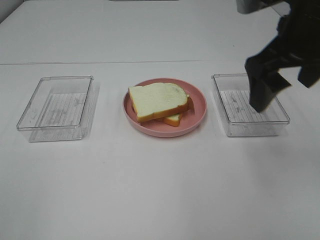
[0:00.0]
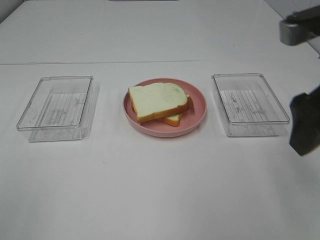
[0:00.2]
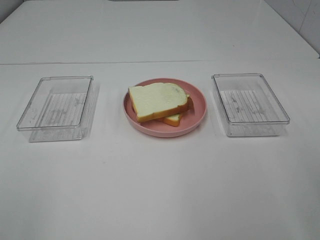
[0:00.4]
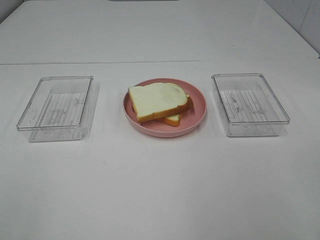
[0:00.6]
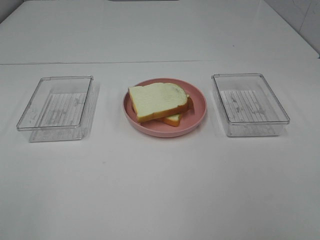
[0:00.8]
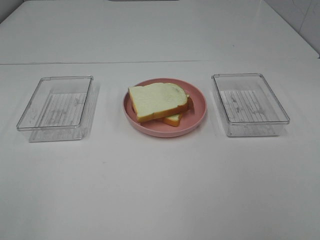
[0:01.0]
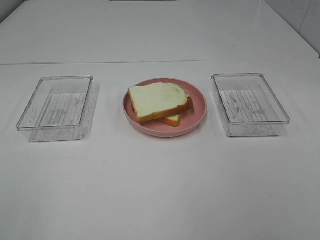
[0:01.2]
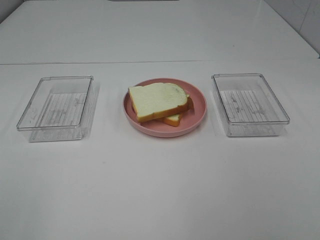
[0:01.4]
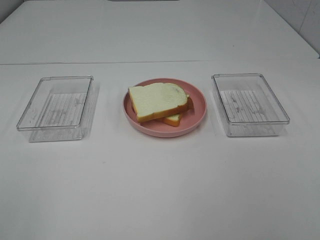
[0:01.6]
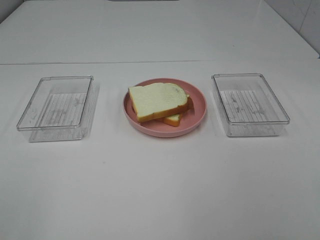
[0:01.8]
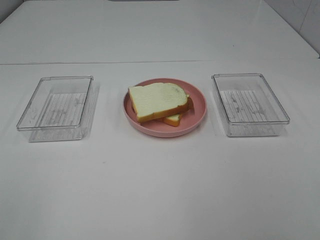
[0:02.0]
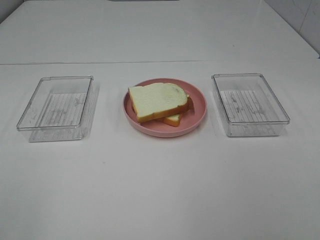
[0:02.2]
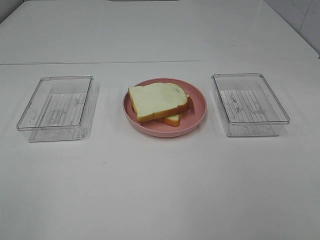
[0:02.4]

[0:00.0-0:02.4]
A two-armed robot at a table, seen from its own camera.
Task of the whole recording: Make sandwiches.
0:00.0 to 0:01.2: The right gripper goes some 30 cm backward and to the right.

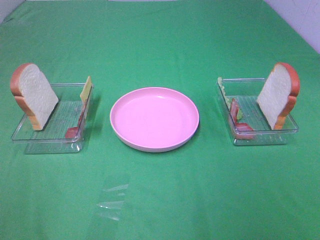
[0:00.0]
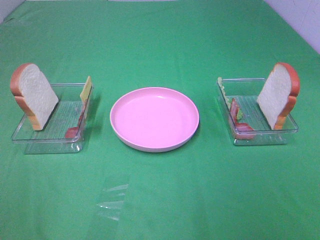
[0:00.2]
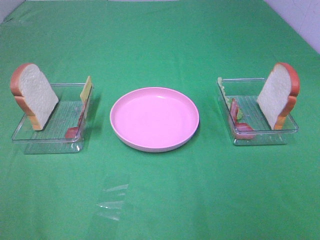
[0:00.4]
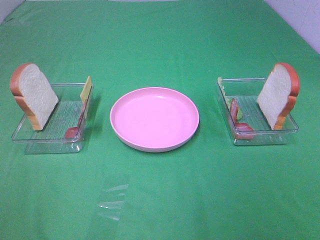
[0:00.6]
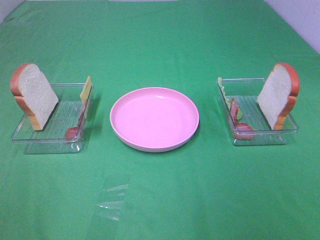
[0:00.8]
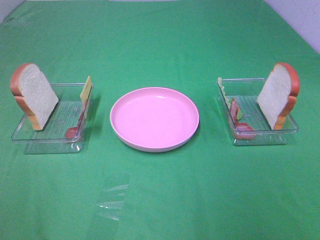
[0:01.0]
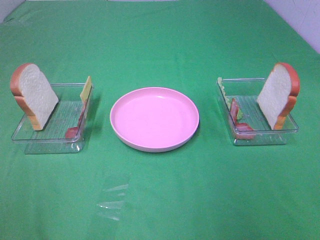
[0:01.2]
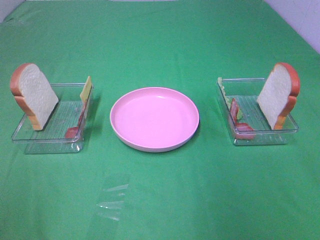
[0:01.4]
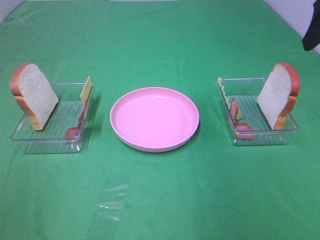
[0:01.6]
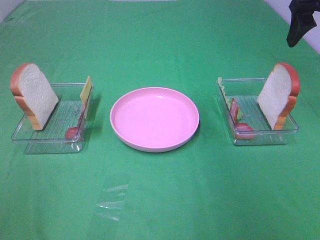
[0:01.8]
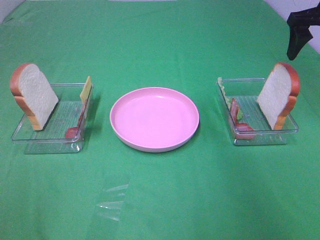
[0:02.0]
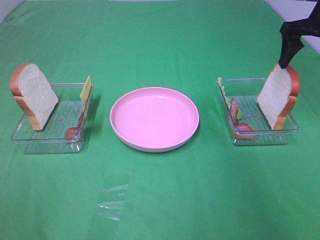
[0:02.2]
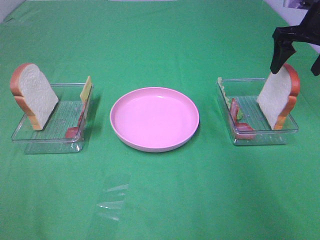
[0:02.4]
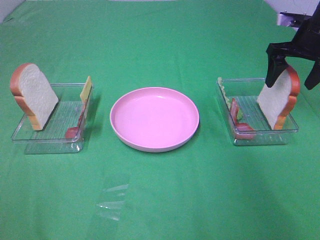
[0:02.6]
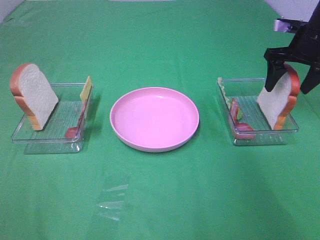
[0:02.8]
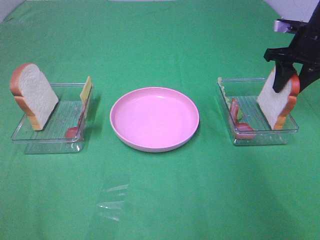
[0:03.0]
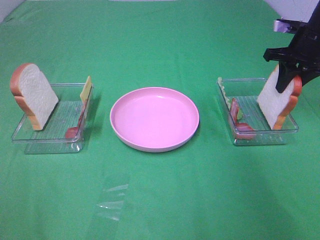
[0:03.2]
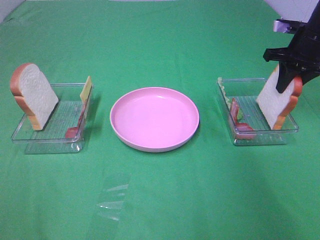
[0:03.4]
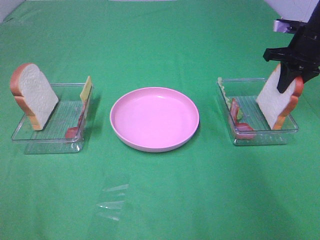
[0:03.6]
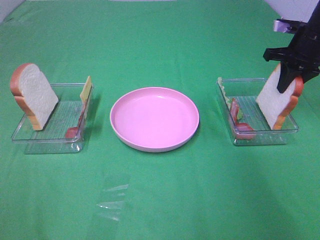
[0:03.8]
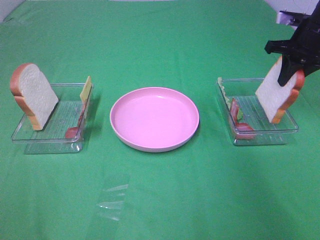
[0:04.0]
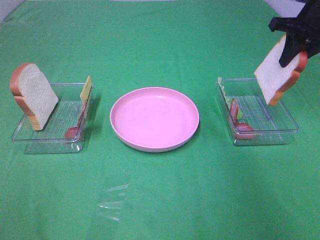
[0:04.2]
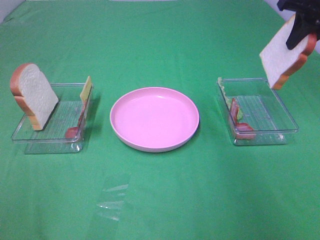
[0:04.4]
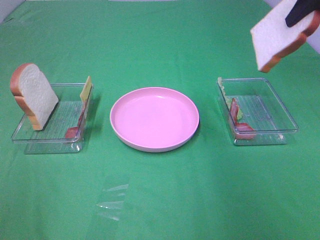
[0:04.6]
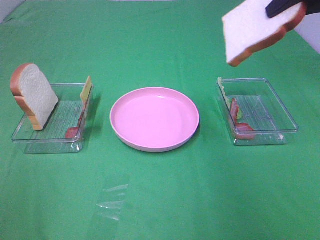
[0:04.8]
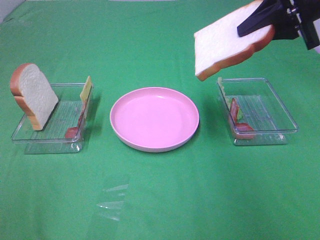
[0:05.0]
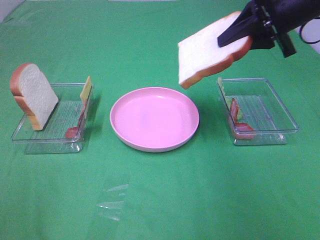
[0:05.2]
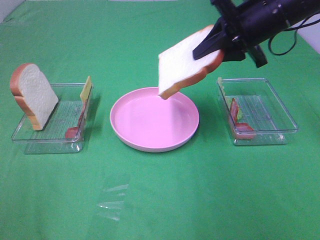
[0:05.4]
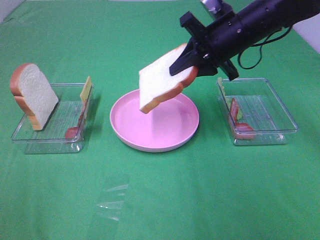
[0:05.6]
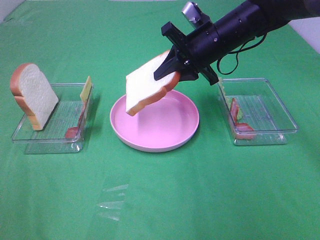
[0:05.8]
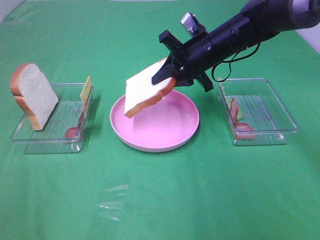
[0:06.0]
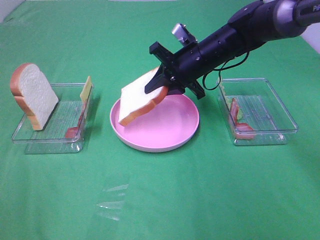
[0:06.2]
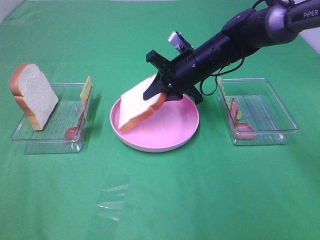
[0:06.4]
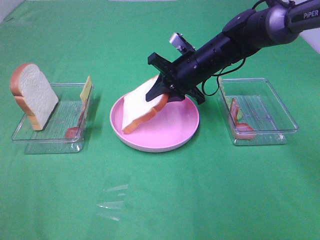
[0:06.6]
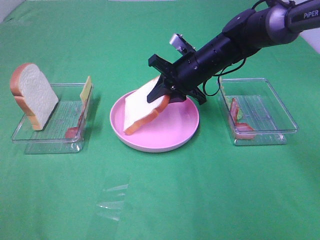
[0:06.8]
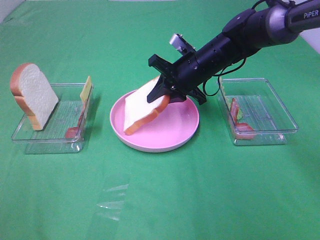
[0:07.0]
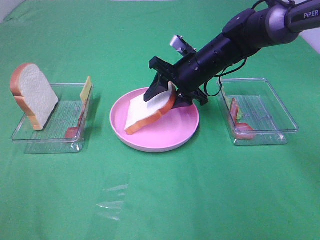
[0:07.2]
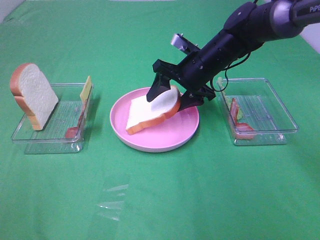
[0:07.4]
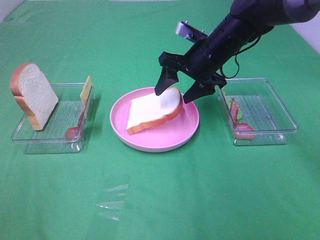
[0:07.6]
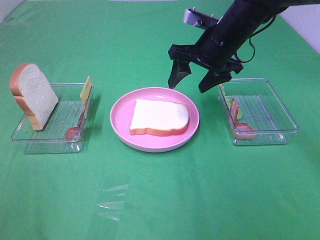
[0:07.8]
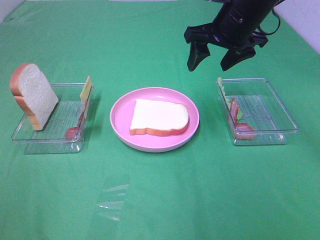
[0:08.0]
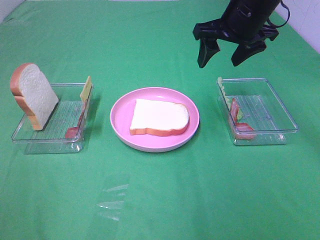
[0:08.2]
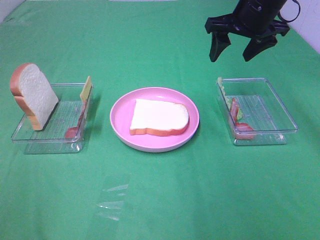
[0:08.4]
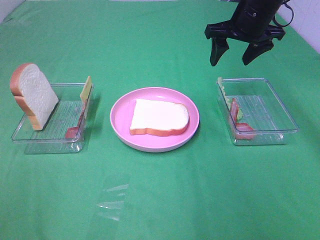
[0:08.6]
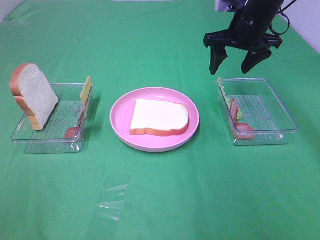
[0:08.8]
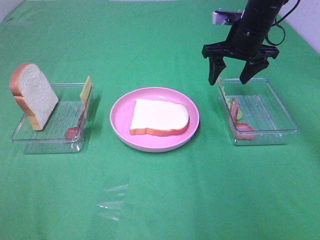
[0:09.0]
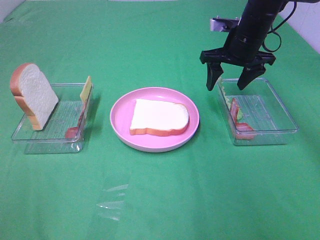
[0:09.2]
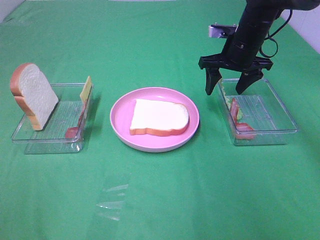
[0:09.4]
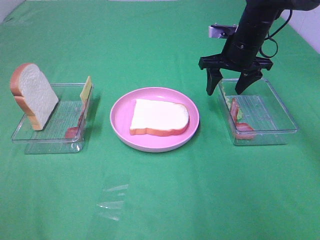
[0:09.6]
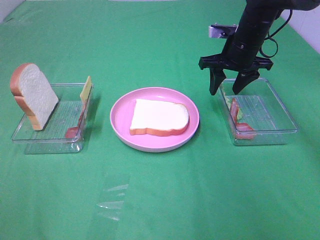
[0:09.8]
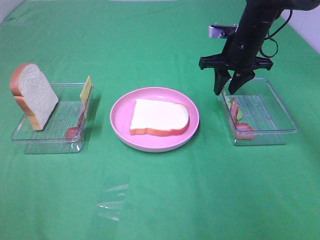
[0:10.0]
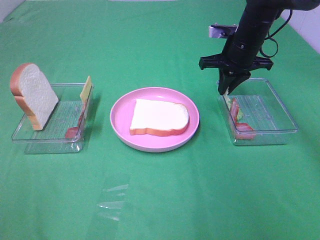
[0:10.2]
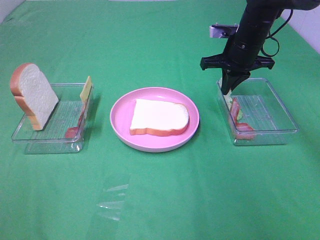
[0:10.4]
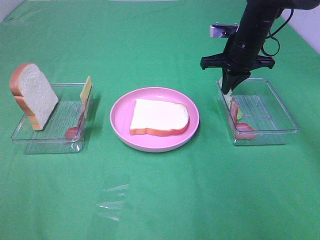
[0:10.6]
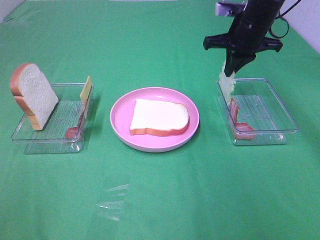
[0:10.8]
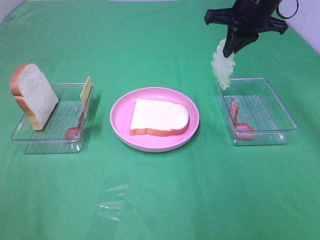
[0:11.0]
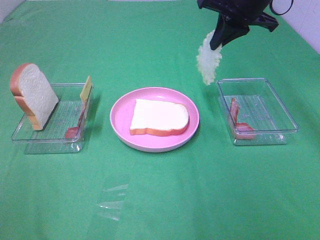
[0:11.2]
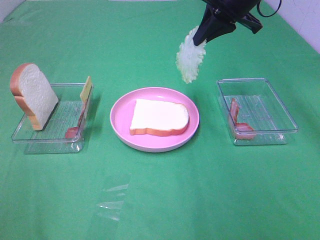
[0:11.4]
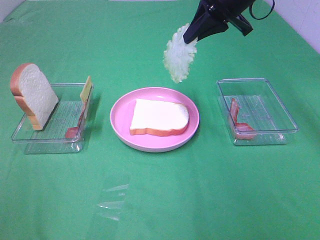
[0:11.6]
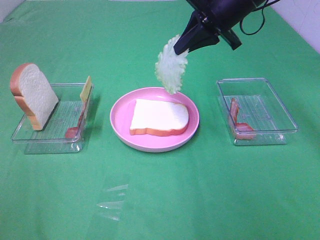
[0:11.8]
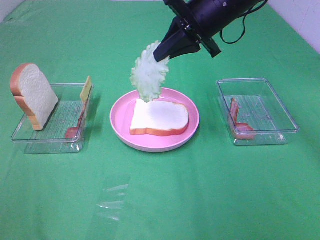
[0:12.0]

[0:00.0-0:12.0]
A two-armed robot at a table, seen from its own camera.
Task of the whole recording: Make sandwiches.
Step, 0:00.0 to 0:03.4: Right hand:grab the bread slice.
Step, 0:03.6 to 0:07.6: Right hand:place the bread slice on the plate.
Step, 0:07.8 to 0:10.6: Right hand:grab the lettuce slice.
0:00.0 to 0:01.6: The right gripper goes roughly 30 cm forward.
0:01.6 to 0:03.0: The right gripper shifts some 20 cm downward and forward, and closes up.
0:03.0 to 0:04.4: The right gripper shifts about 10 cm upward.
0:04.4 to 0:06.0: The right gripper moves to the left and downward, approximately 25 cm.
0:06.0 to 0:07.6: The right gripper opens its fingers.
0:07.6 to 0:09.0: The right gripper heads to the right, covering roughly 5 cm, and reaches approximately 10 cm upward, then returns.
0:09.0 to 0:10.4: The right gripper closes up.
0:10.4 to 0:12.0: The right gripper heads upward, to the left and backward, covering about 15 cm.

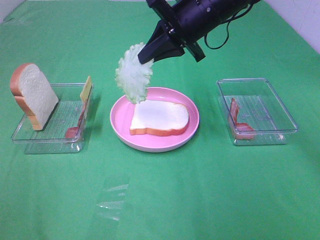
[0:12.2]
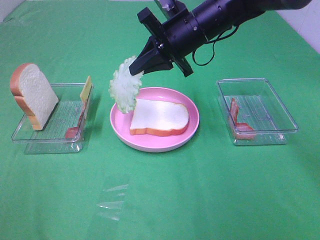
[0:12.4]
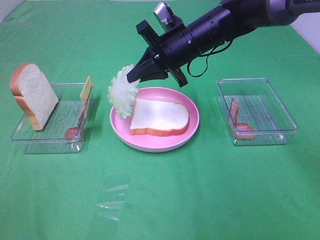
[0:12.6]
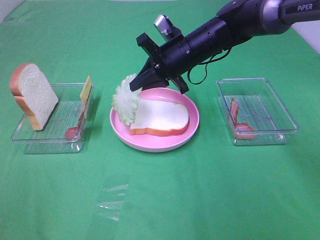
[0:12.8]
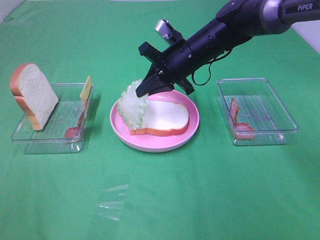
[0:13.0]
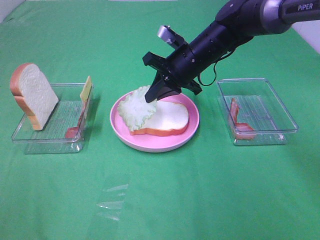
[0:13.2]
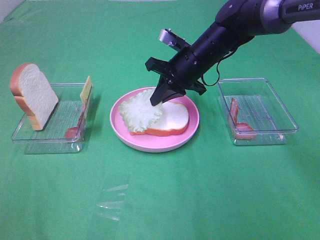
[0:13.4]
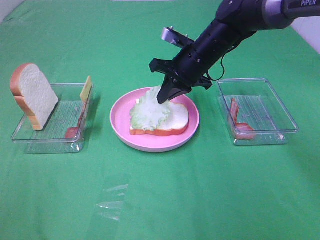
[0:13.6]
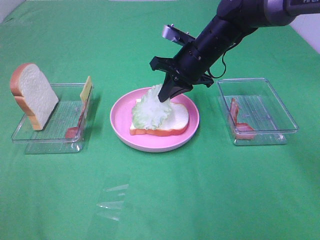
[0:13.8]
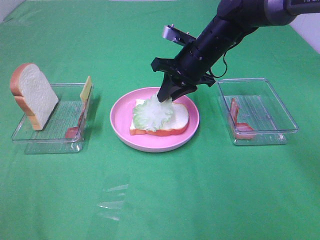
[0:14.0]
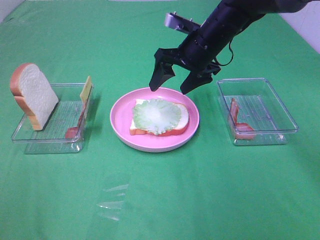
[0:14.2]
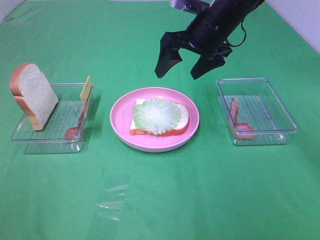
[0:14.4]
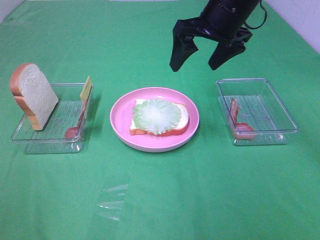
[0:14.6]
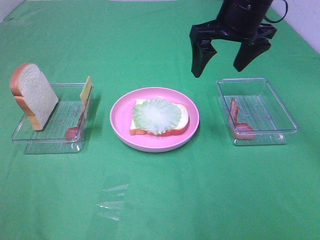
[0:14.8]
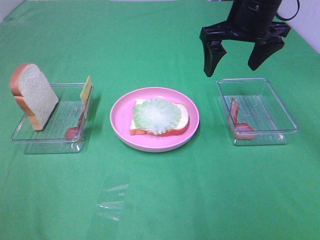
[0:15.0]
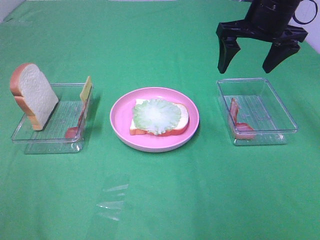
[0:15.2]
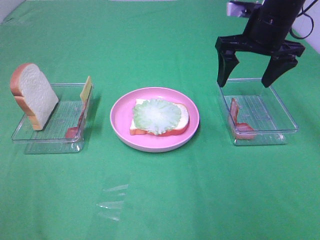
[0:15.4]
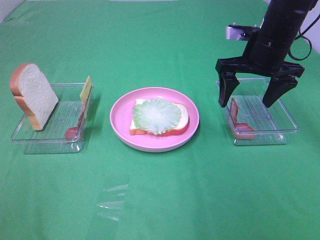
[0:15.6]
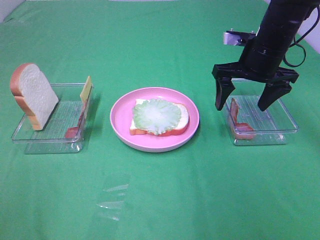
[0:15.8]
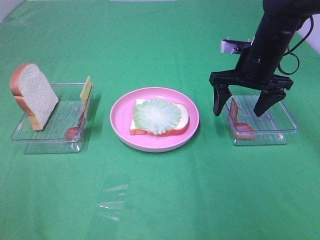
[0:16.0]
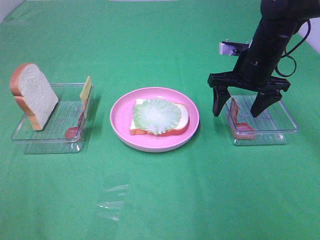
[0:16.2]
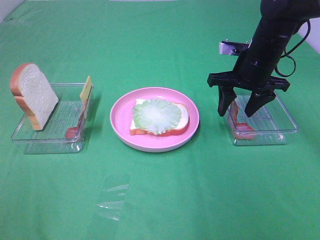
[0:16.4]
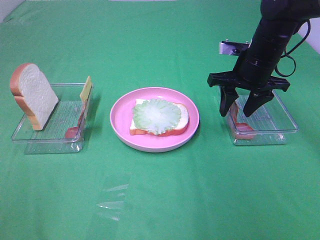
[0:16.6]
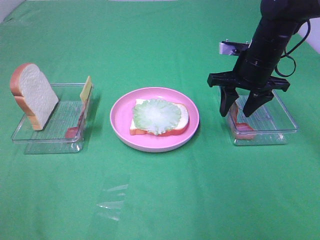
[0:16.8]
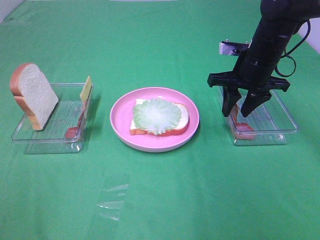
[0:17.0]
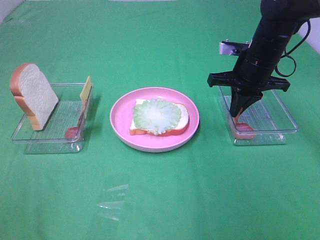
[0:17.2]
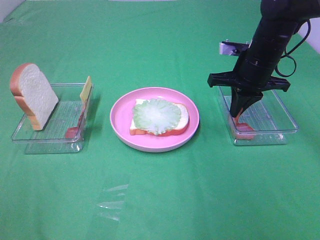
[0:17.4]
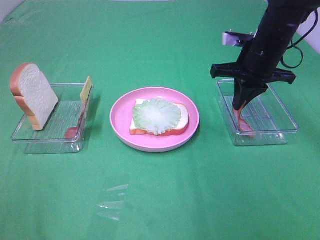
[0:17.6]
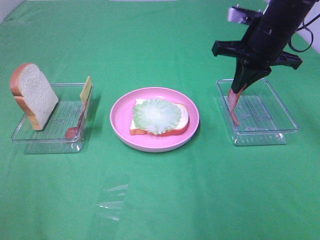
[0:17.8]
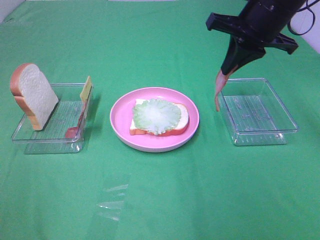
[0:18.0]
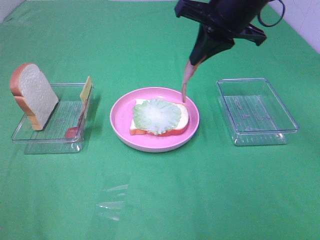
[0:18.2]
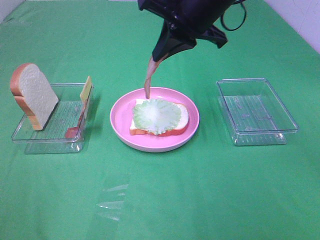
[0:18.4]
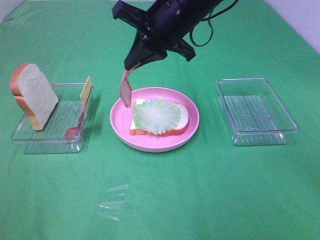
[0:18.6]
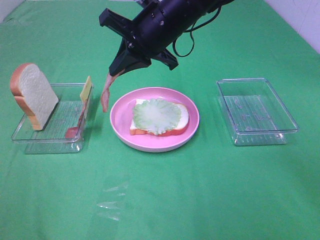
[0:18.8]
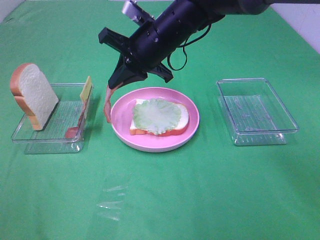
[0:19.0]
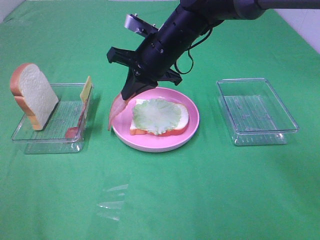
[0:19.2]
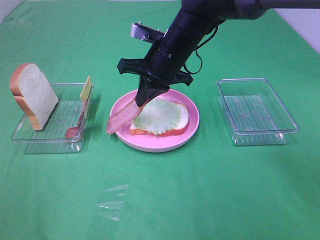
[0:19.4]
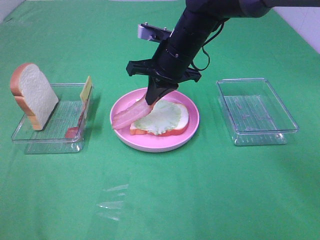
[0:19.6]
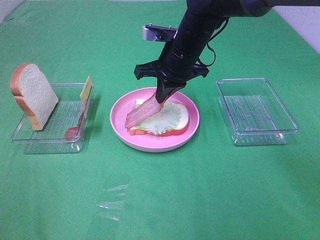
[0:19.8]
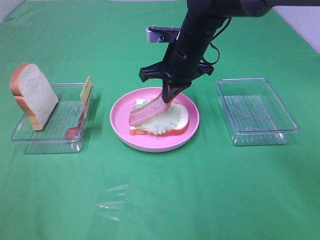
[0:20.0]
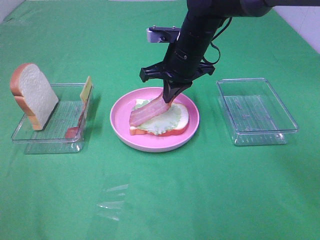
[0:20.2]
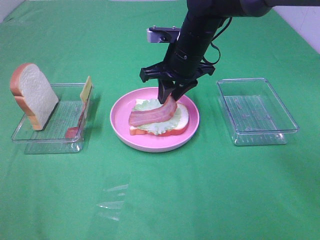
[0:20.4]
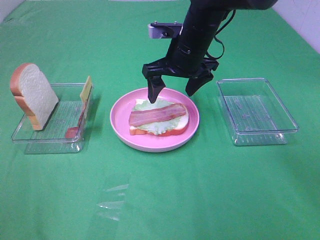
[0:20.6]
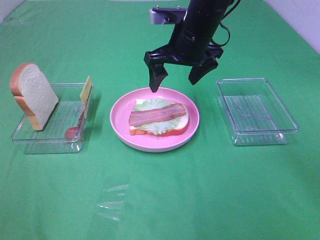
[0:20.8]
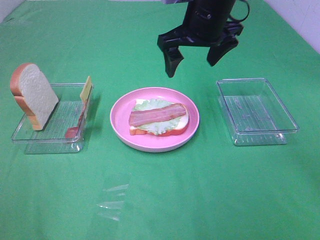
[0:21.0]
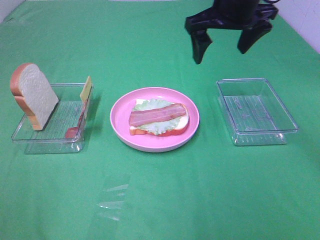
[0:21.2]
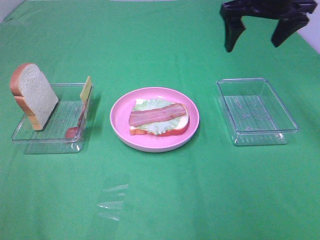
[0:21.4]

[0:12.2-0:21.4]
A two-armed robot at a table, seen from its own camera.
Task of the whole recording: Make sandwiches.
Step, 0:12.2 to 0:14.0: Right hand:place the lettuce slice on the bread slice.
Step, 0:14.2 to 0:17.2: Right hand:grab the bacon.
Step, 0:17.4 to 0:20.4: Right hand:place bacon on lettuce slice.
0:12.2 to 0:13.8: The right gripper travels downward by some 10 cm.
0:13.8 to 0:15.2: The right gripper moves upward and to the right, approximately 15 cm, and opens up.
0:15.2 to 0:16.8: The right gripper is displaced downward by about 10 cm, and closes.
0:16.8 to 0:18.4: The right gripper heads to the left and upward, covering approximately 15 cm, and closes up.
0:18.4 to 0:19.8: The right gripper travels downward by roughly 10 cm.
0:19.8 to 0:21.4: The right gripper goes about 20 cm to the right and upward, and opens up.
